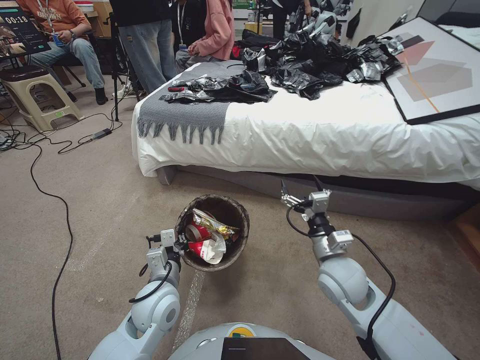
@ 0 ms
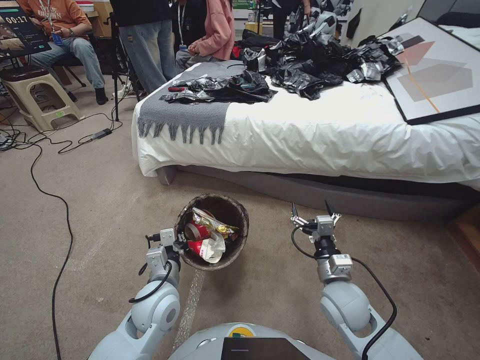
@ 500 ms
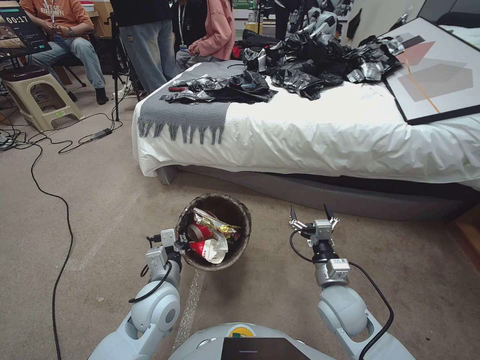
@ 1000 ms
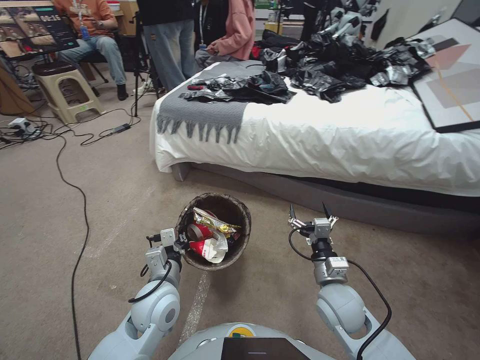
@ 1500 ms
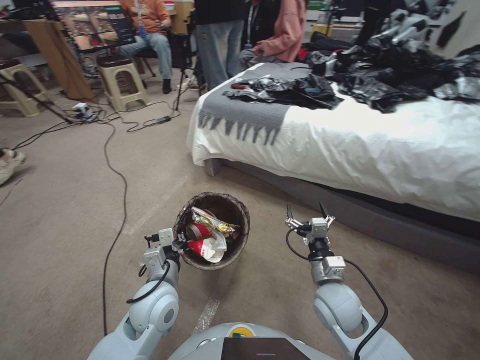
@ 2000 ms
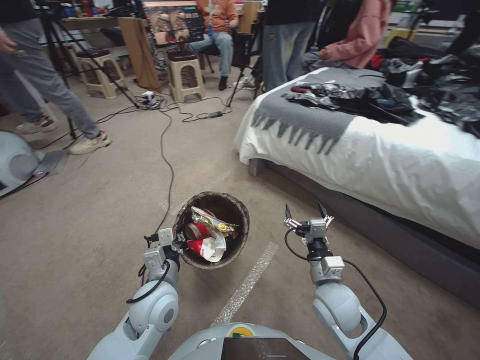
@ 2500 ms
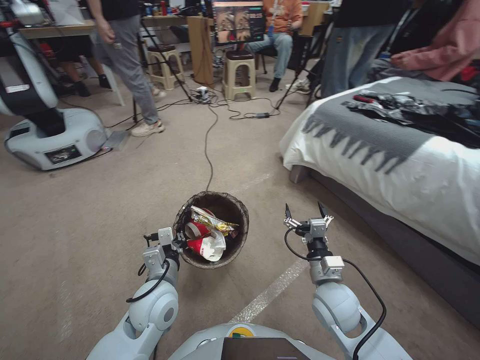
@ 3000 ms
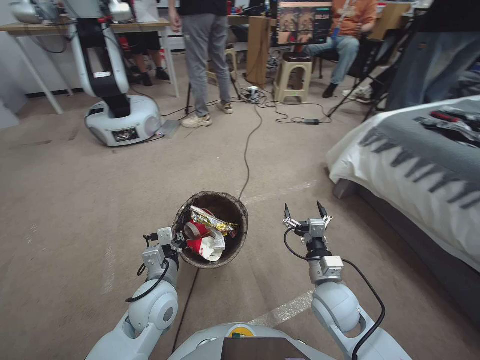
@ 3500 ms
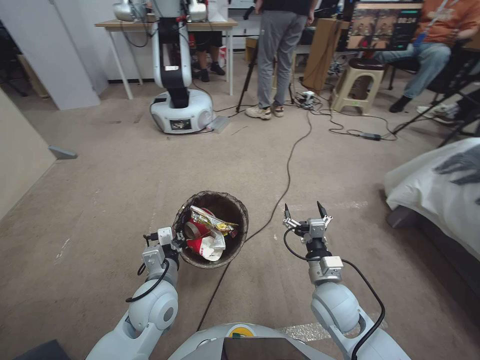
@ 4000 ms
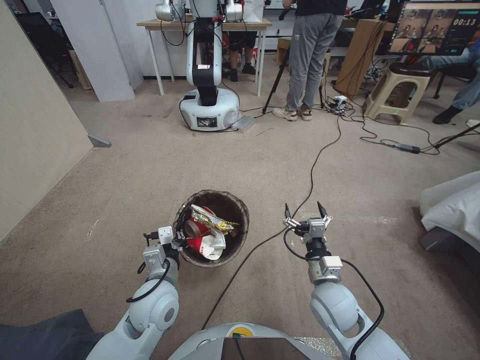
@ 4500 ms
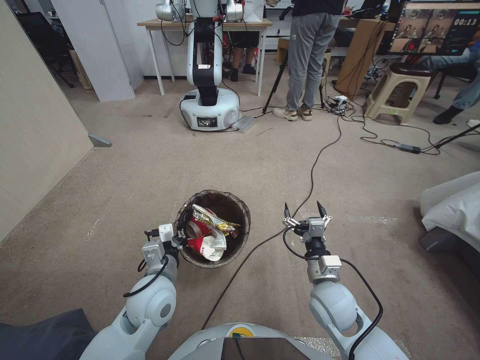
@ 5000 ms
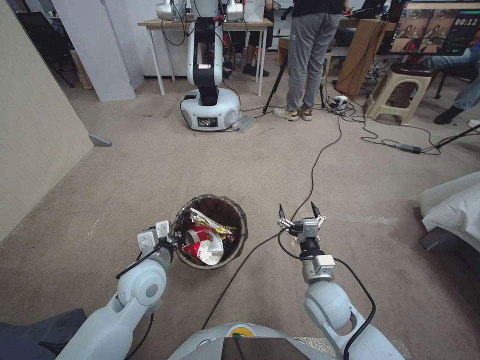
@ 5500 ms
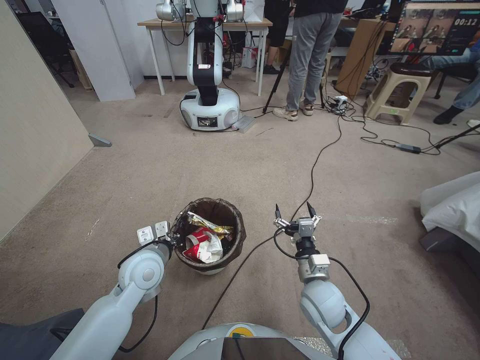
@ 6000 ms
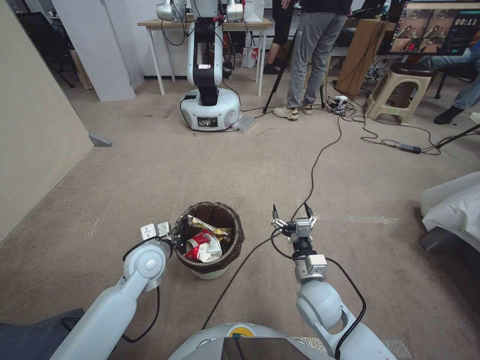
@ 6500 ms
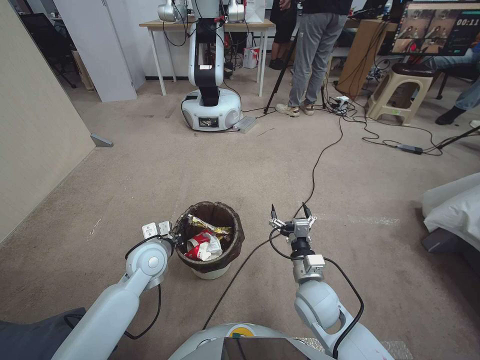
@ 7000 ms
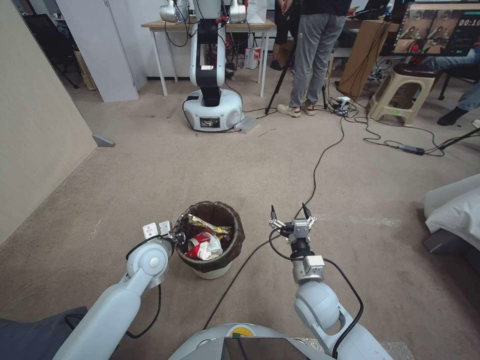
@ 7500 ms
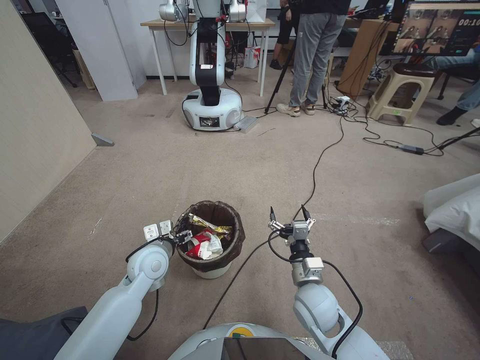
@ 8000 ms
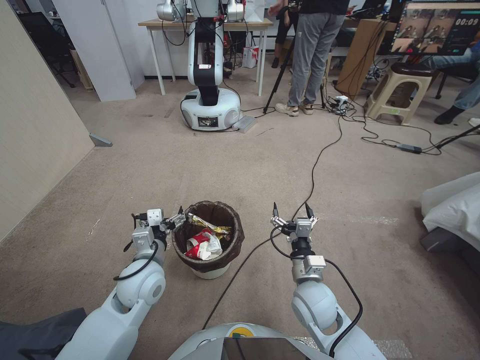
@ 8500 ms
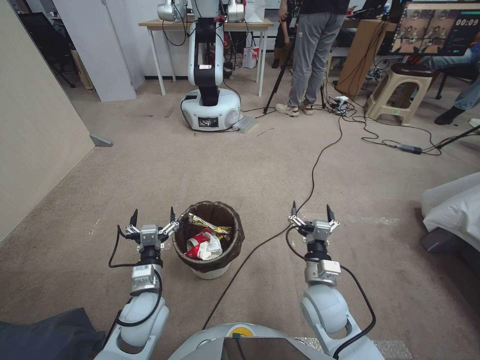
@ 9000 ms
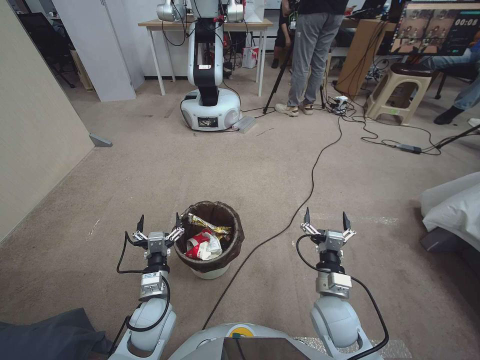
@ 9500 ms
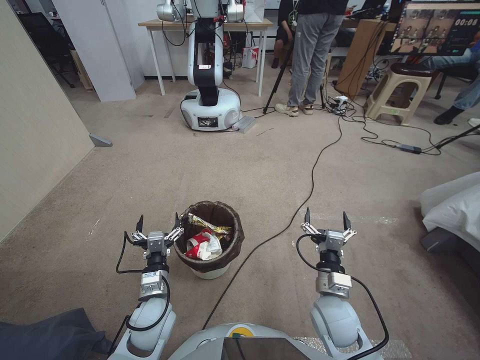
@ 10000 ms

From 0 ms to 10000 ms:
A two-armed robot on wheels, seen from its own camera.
Task of the whole recording: Pick up the trash bin, then pick up the garbage from the floor and place it into the trash bin.
From 0 ms to 2000 ms: The right gripper shifts roughly 10 cm downward and backward.
From 4000 ms to 6000 ms: The left gripper shifts some 5 cm forward.
From 6000 ms to 8000 ms: The left gripper shifts by about 5 cm, and opens up.
From 8000 ms to 10000 ms: The left gripper heads backward and downward, covering some 10 cm.
